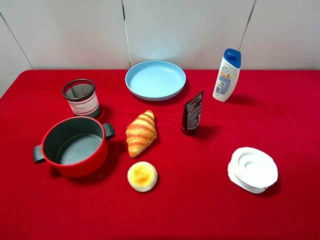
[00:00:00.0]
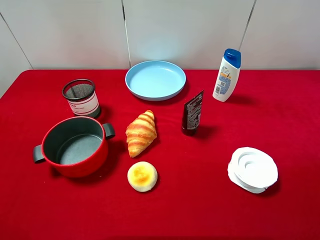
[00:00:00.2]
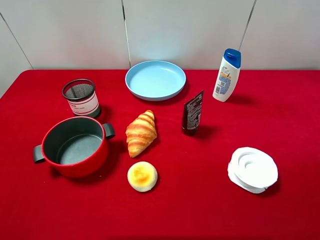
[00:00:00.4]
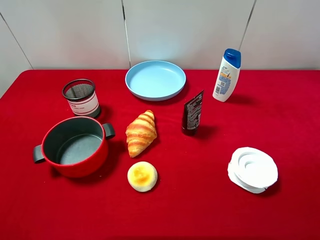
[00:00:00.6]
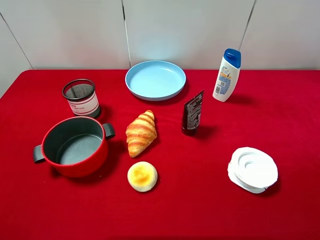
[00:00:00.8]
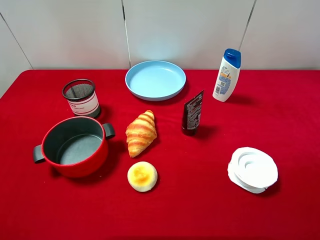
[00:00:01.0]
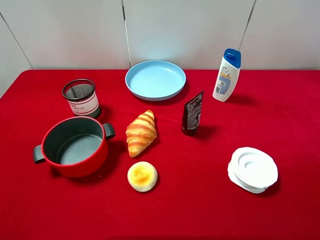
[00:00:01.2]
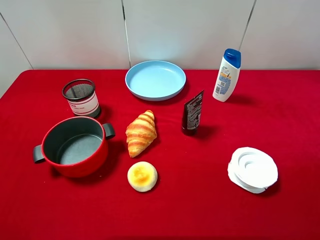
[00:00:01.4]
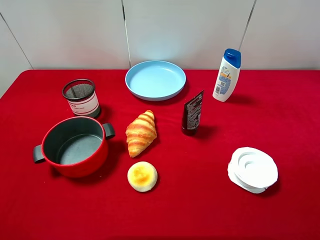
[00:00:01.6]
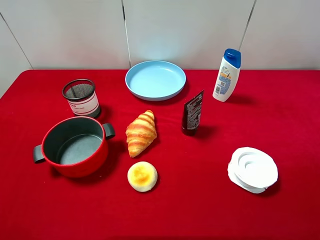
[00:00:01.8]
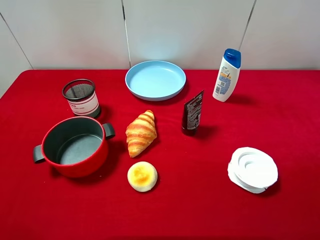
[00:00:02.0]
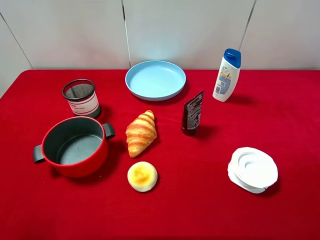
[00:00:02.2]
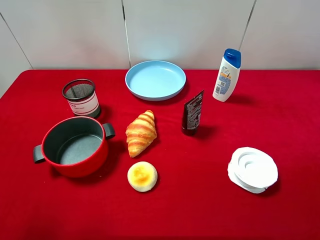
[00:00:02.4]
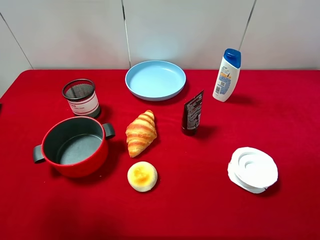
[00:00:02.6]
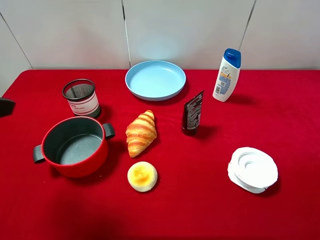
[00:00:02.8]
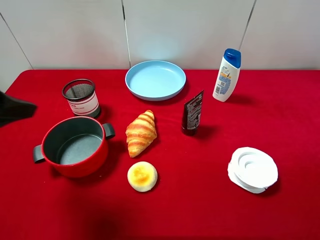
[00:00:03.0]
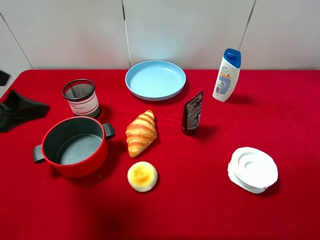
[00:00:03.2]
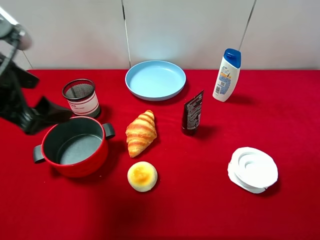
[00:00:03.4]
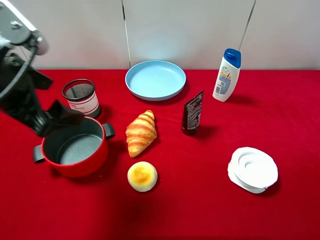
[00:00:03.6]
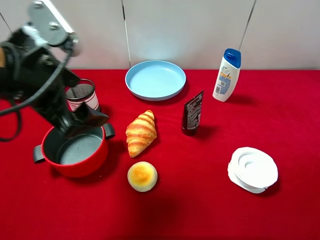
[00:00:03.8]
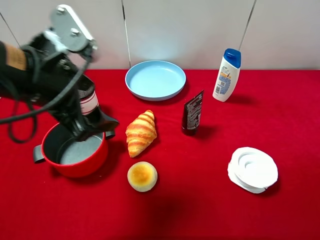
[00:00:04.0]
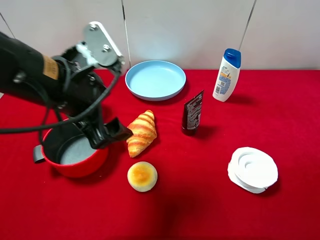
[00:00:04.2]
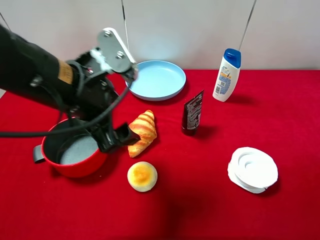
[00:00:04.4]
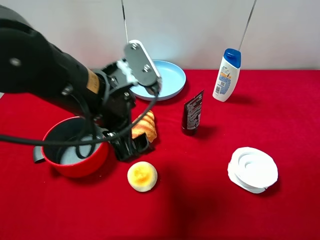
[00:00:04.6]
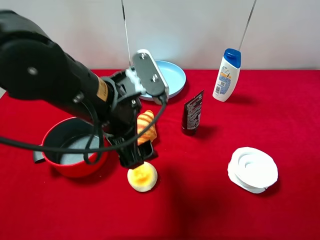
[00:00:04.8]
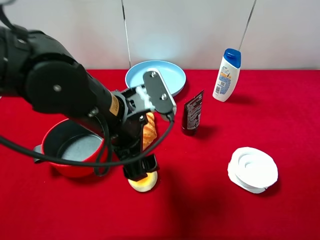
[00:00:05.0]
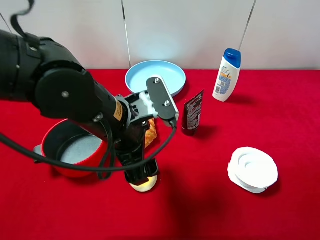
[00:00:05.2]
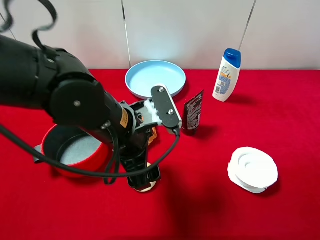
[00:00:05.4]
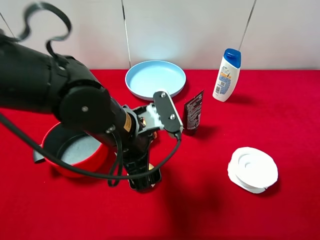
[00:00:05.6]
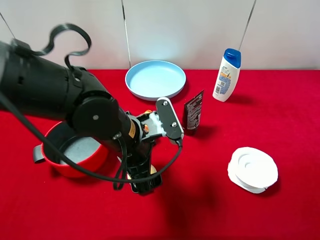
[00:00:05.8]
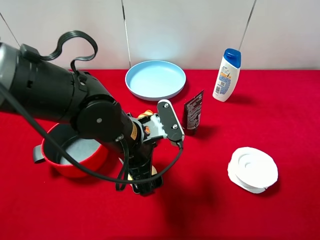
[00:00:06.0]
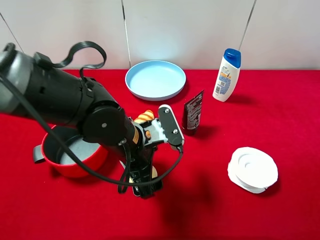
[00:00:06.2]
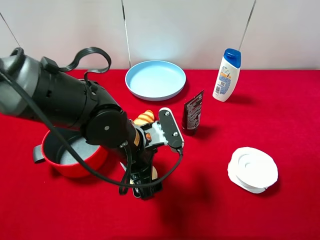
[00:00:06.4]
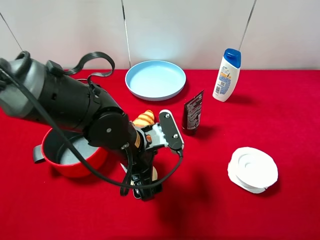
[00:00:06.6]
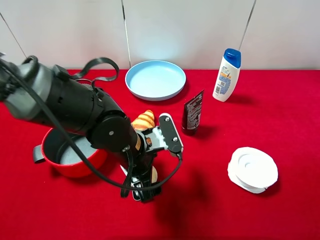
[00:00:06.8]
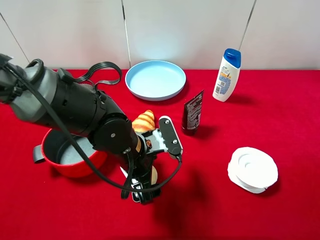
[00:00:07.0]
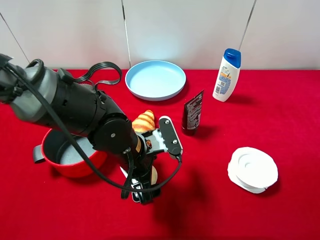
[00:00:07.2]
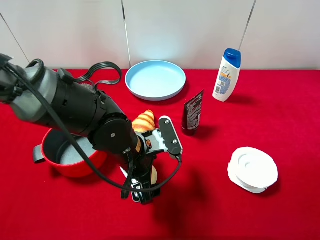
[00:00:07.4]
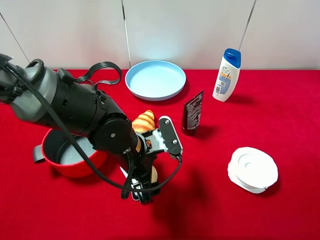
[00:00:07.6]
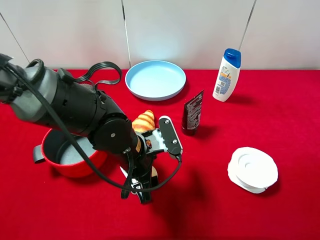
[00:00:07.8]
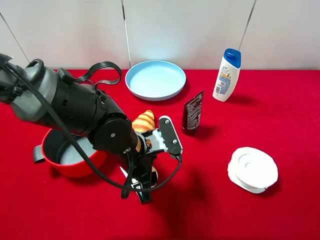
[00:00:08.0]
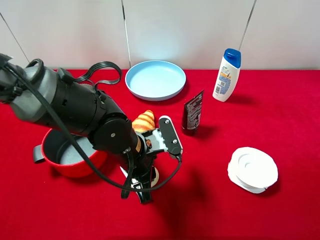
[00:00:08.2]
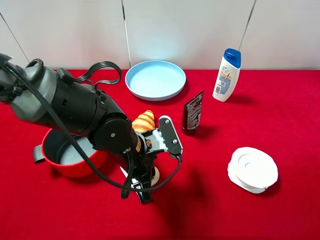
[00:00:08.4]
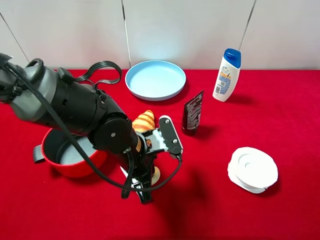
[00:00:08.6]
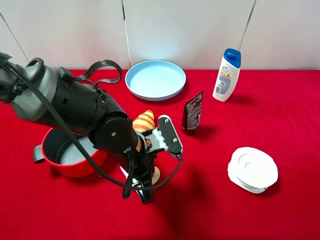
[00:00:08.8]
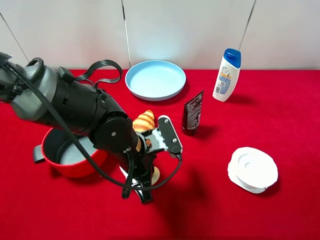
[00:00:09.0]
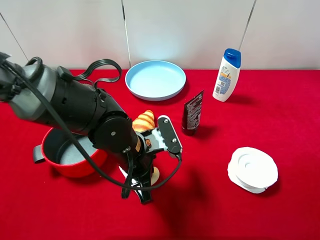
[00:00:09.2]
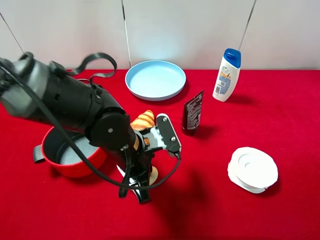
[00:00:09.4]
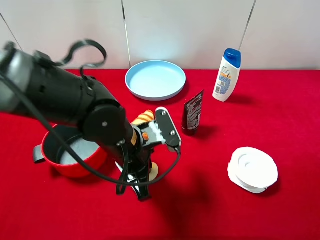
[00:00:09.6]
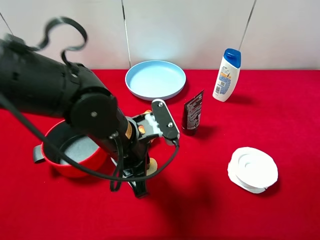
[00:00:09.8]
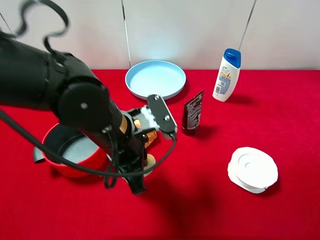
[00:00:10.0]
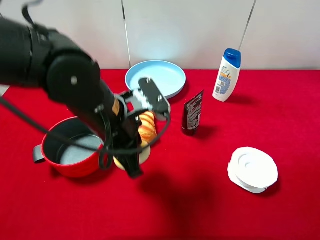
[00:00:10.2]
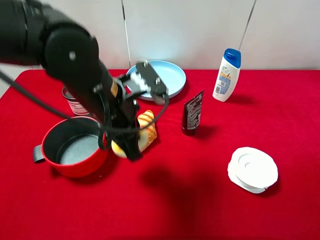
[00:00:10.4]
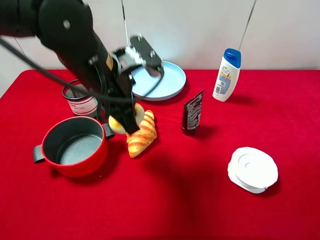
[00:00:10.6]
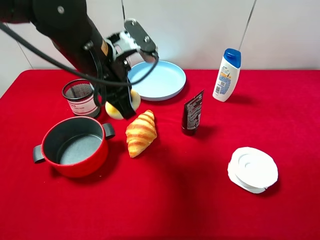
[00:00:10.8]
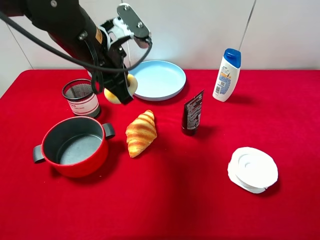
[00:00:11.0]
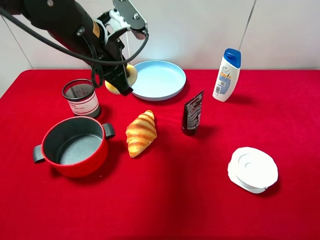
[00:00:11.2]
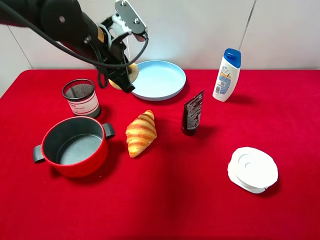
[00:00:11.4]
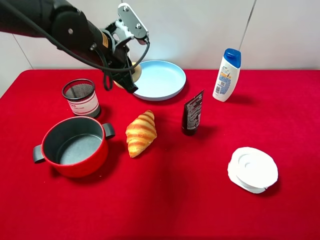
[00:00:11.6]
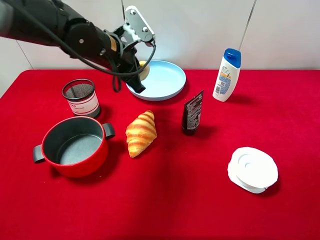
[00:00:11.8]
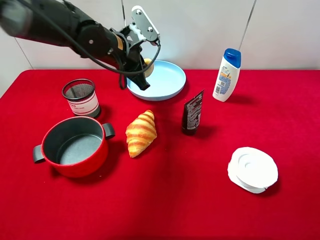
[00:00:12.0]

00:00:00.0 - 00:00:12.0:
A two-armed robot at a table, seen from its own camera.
Task of the whole recording: pick up an item with a gripper and place it in a random container on the desktop.
00:00:01.6 - 00:00:03.0: The left gripper heads forward and to the right, covering about 15 cm.
00:00:03.0 - 00:00:04.4: The left gripper heads to the right, covering roughly 15 cm.
00:00:04.4 - 00:00:06.0: The left gripper goes some 10 cm downward and to the right.
00:00:06.0 - 00:00:07.6: The grippers move only a little.
00:00:07.6 - 00:00:09.0: The left gripper closes its fingers.
00:00:09.0 - 00:00:10.4: The left gripper goes roughly 10 cm upward.
00:00:10.4 - 00:00:12.0: The left gripper shifts roughly 15 cm forward.

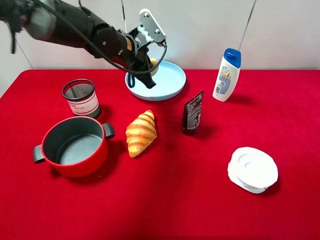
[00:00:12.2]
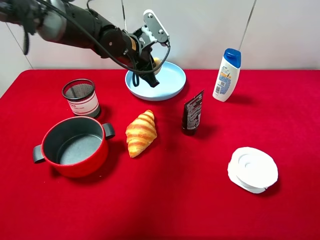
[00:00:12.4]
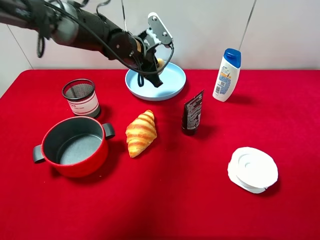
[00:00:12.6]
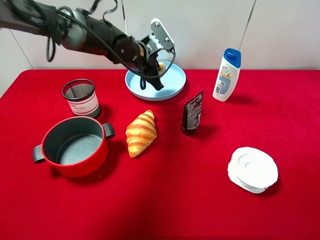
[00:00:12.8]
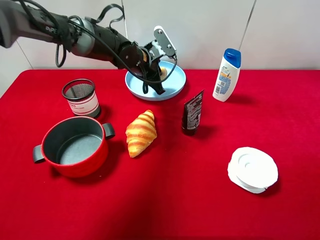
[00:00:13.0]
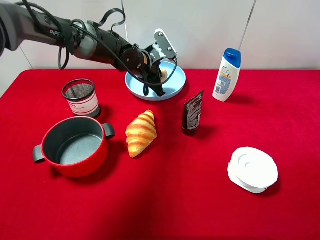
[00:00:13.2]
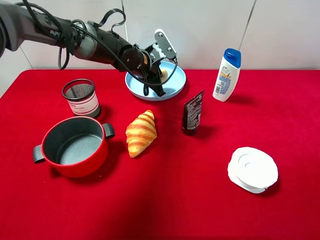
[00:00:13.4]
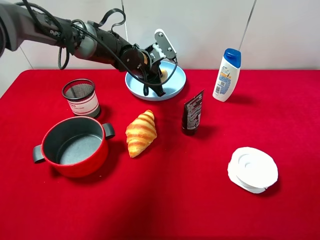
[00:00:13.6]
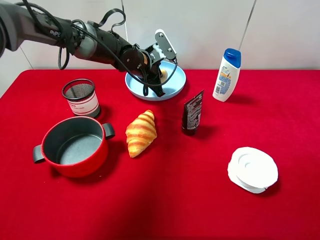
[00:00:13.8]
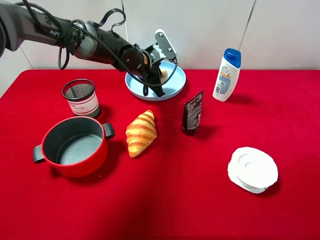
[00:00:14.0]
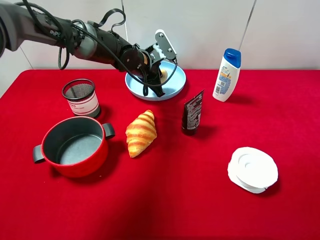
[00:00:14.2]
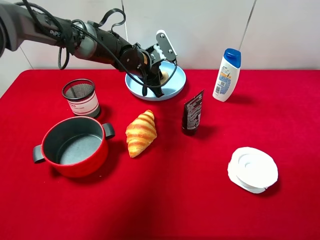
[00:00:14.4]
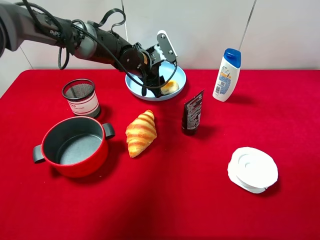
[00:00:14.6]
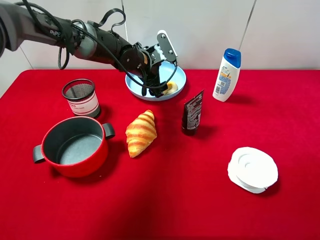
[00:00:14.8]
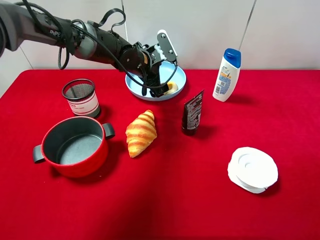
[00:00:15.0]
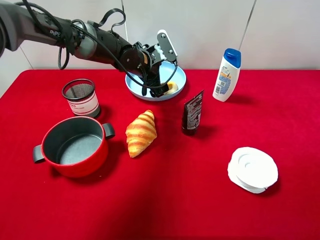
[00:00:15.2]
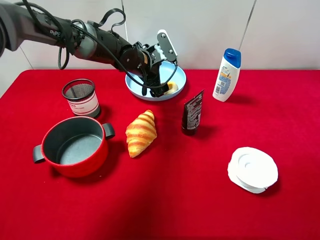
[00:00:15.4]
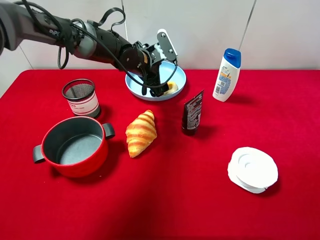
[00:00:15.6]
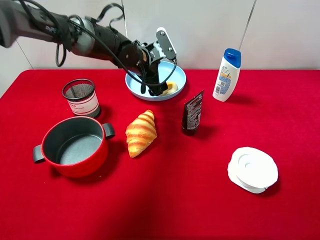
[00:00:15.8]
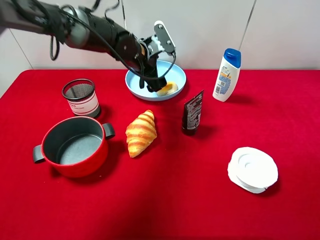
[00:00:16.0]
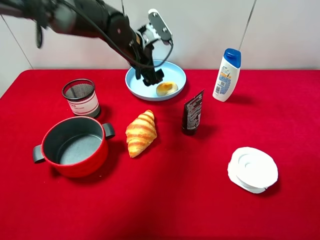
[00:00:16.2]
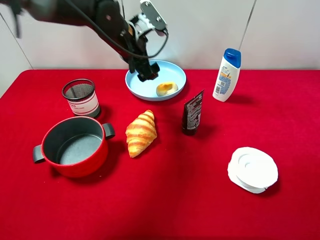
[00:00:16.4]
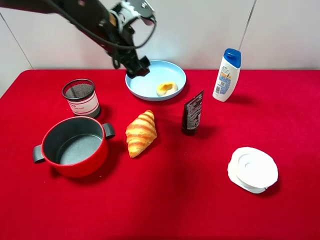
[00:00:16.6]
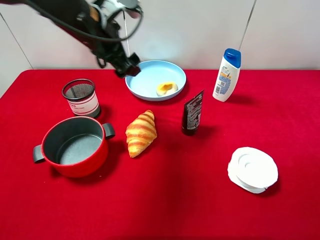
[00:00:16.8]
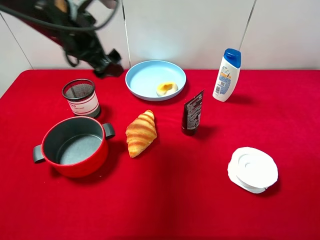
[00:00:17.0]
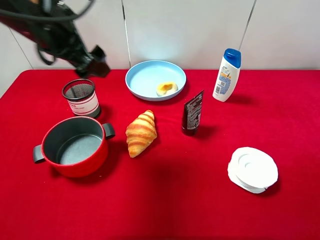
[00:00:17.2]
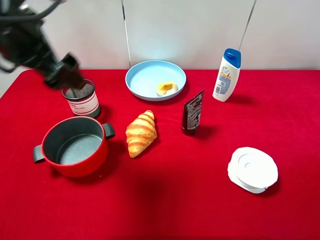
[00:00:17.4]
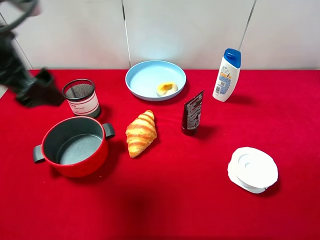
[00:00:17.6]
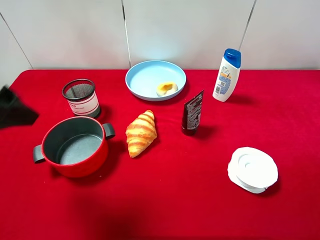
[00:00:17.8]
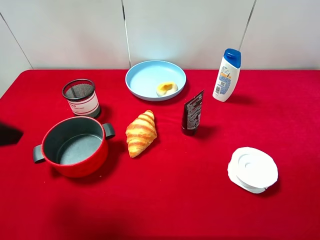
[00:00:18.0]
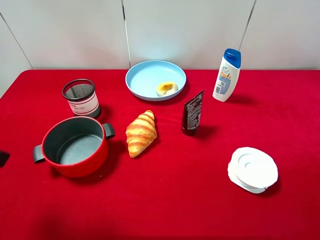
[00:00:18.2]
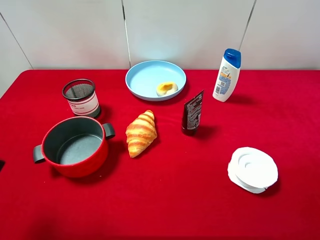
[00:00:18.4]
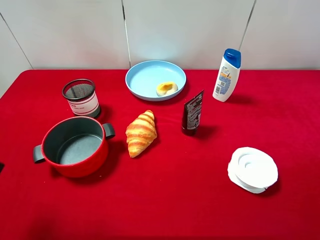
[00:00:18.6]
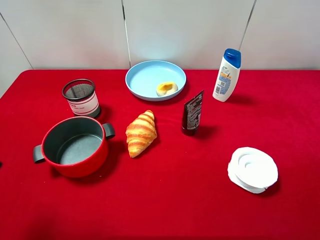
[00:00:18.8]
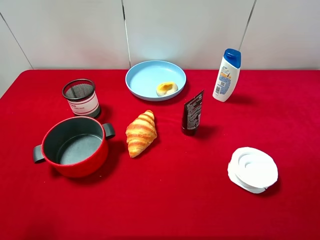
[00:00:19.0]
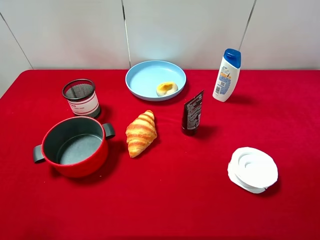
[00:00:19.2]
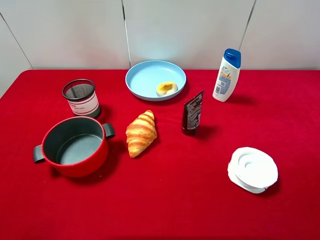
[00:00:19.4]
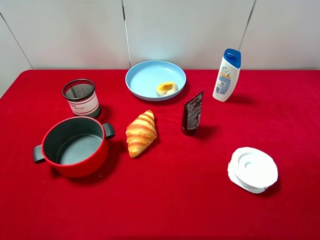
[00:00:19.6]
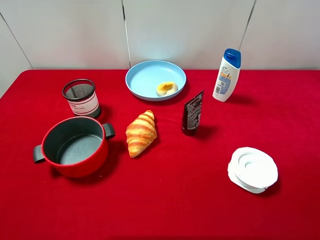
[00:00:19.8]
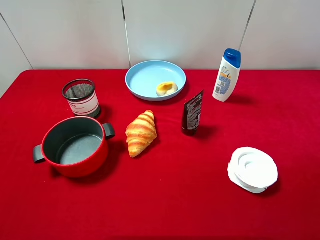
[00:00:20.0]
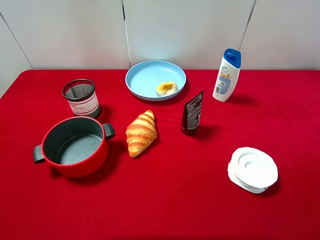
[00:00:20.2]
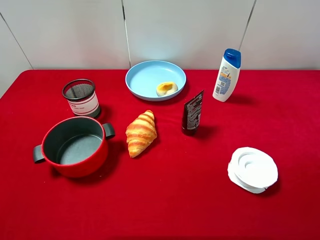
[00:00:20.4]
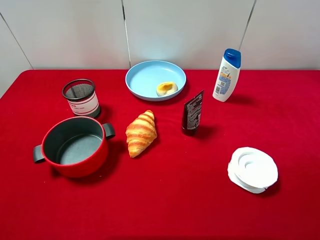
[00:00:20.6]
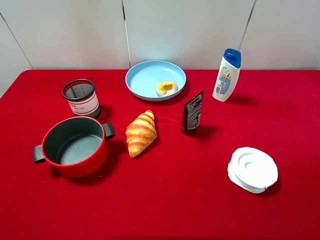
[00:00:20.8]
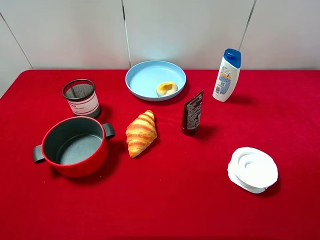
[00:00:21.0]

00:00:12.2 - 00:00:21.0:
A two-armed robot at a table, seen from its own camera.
Task of the whole recording: pick up an item with a gripper and place it in a random container on the desktop.
00:00:12.2 - 00:00:13.6: The left gripper goes about 5 cm downward.
00:00:13.6 - 00:00:15.2: The left gripper opens up.
00:00:15.2 - 00:00:16.6: The left gripper heads upward and backward, covering about 10 cm.
00:00:16.6 - 00:00:18.0: The left gripper travels backward and to the left by roughly 30 cm.
00:00:18.0 - 00:00:19.6: The left gripper shifts roughly 15 cm backward and to the left.
